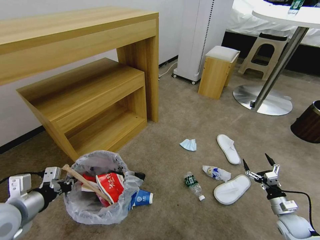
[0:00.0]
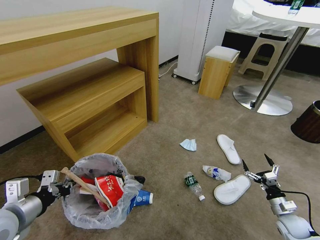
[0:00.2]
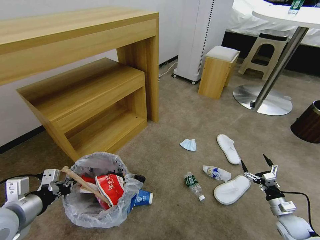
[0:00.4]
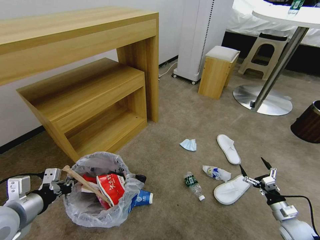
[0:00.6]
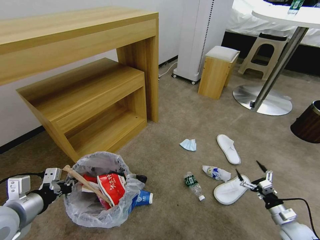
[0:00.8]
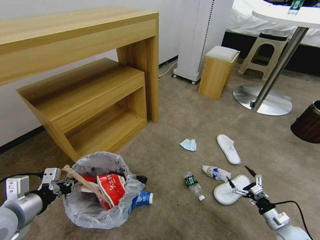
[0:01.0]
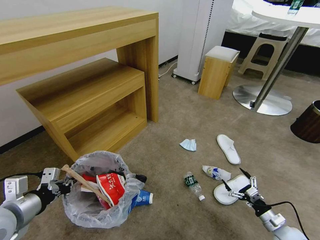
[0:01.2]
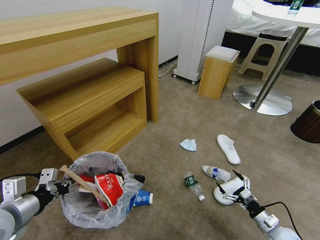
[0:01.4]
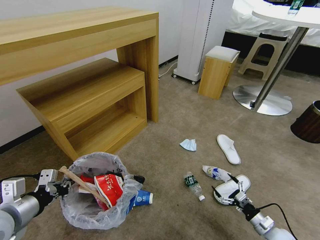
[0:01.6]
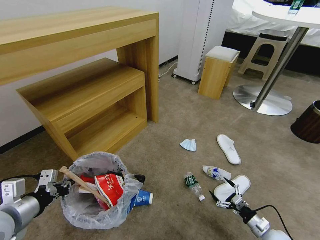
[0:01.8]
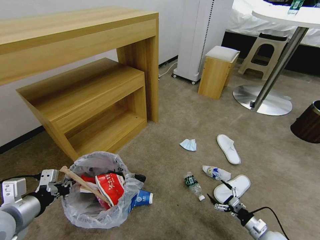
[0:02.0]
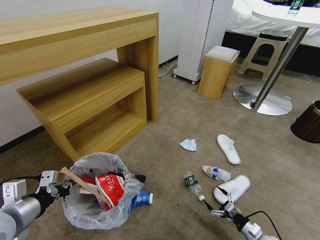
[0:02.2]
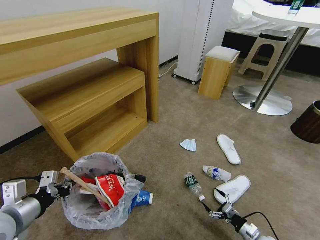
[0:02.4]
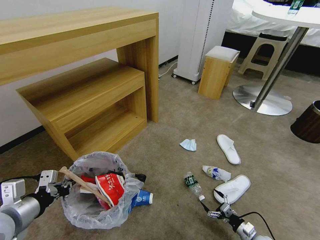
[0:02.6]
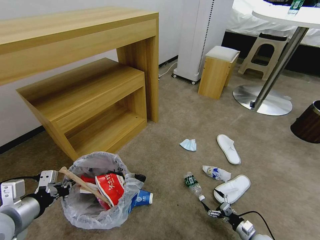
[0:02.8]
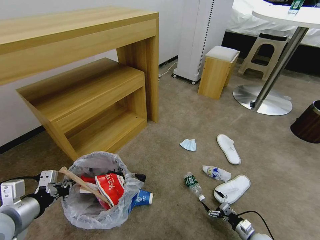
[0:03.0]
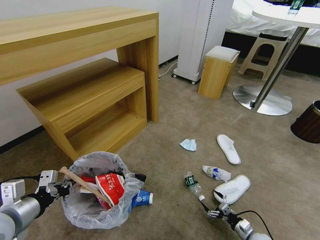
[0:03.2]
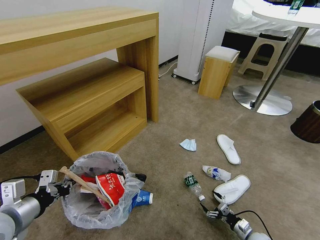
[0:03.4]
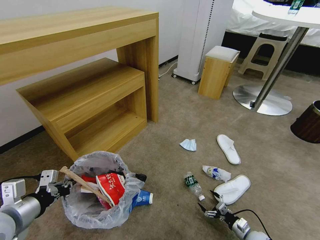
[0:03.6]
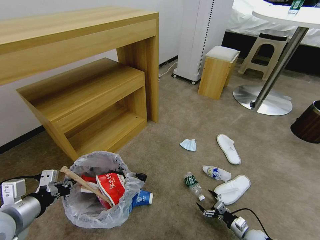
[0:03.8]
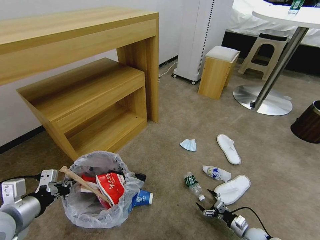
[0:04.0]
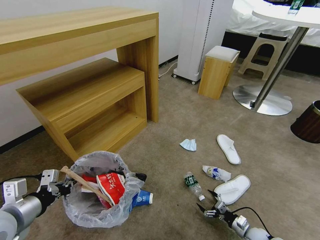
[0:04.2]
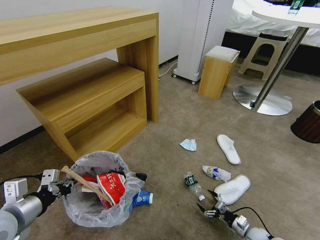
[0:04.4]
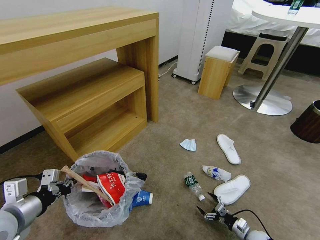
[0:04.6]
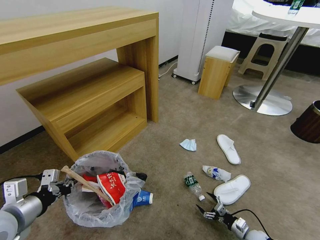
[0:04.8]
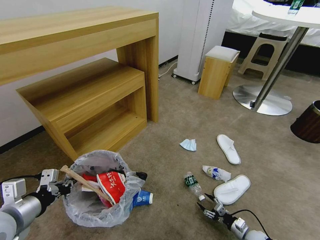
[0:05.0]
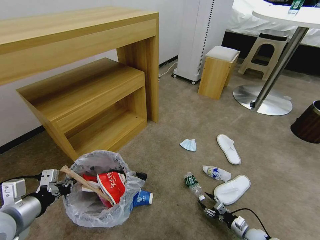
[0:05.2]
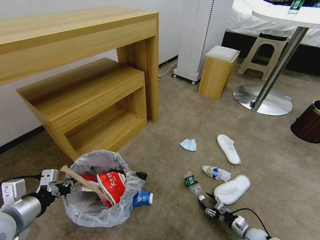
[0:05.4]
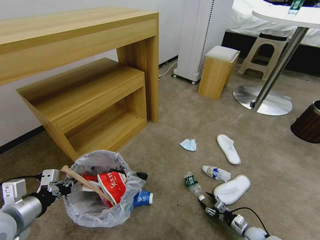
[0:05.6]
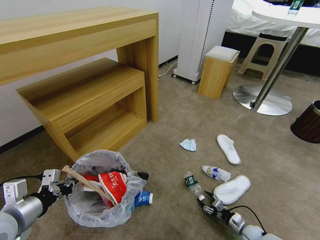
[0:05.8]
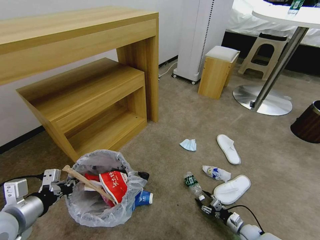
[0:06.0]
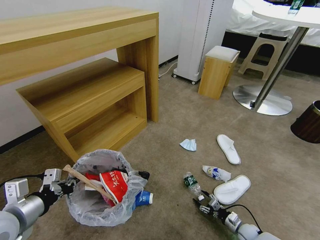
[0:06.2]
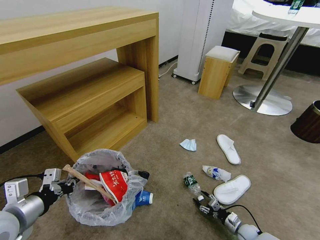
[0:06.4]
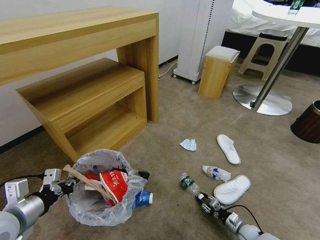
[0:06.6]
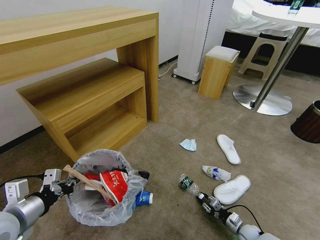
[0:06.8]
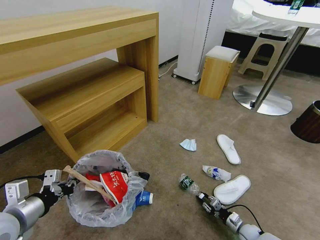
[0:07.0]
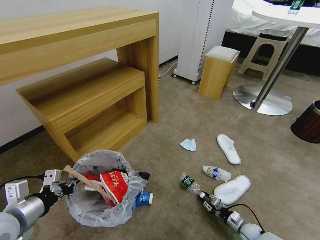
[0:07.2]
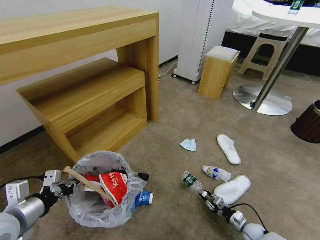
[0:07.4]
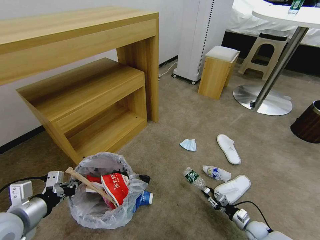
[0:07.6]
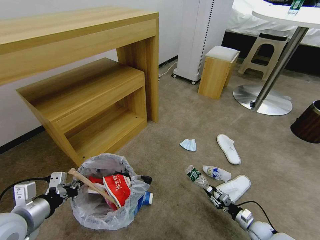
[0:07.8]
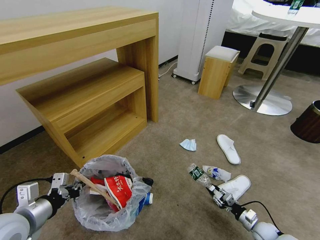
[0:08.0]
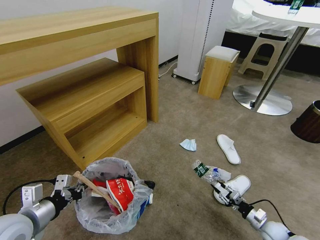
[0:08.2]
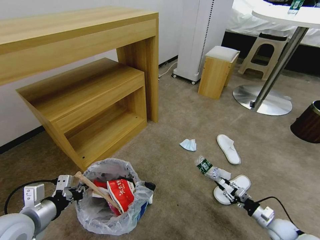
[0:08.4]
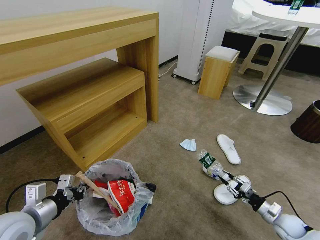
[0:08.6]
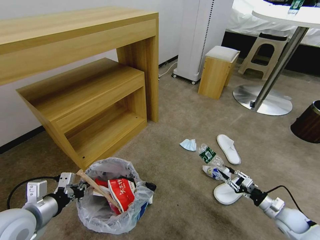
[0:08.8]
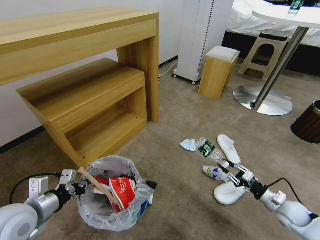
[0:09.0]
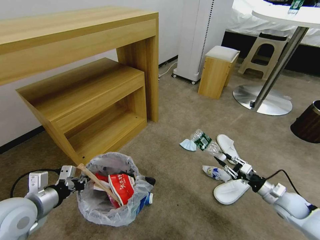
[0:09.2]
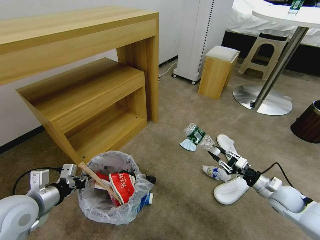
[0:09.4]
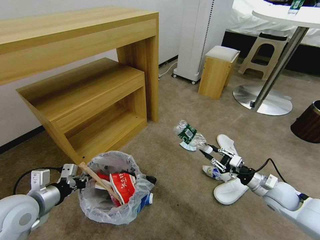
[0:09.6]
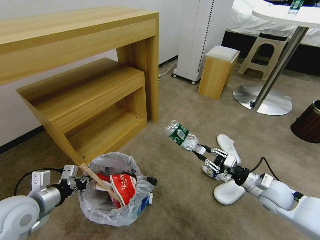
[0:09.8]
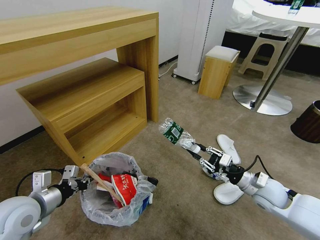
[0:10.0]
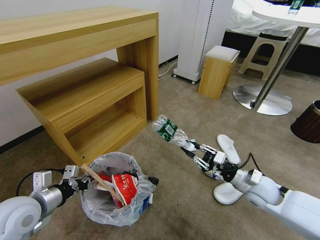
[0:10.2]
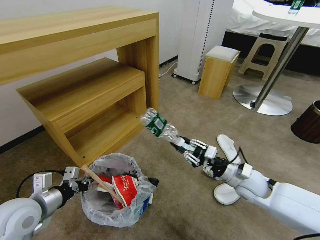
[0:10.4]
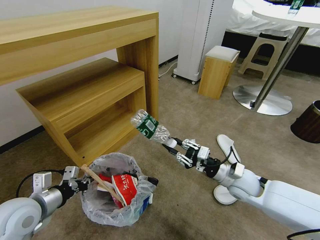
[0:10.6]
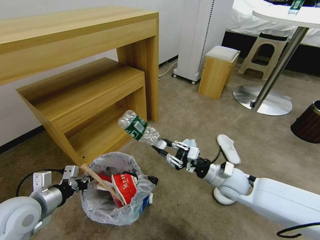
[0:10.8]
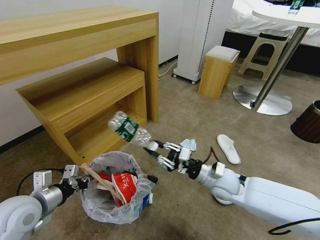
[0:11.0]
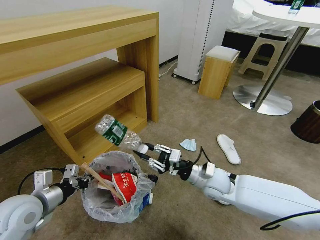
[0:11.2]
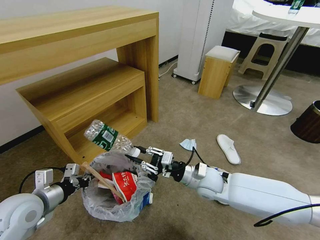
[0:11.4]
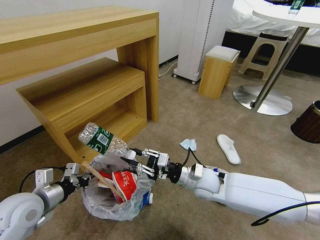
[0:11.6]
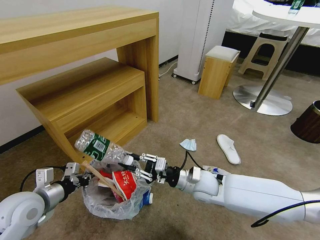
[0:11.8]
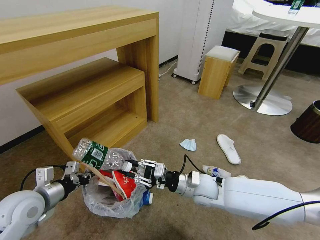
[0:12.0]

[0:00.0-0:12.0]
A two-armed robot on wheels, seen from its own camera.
Task of the whole recording: Pick up the trash bin and place the garbage on the floor into it.
0:00.0 to 0:01.6: The right gripper moves to the left, some 5 cm.
0:01.6 to 0:03.0: The right gripper shifts about 10 cm downward.
0:03.0 to 0:06.0: The grippers make only small movements.
0:06.0 to 0:07.6: The right gripper closes.
0:07.6 to 0:09.0: The right gripper goes approximately 20 cm upward.
0:09.0 to 0:10.4: The right gripper shifts about 20 cm to the left and upward.
0:10.4 to 0:12.0: The right gripper shifts approximately 15 cm to the left.

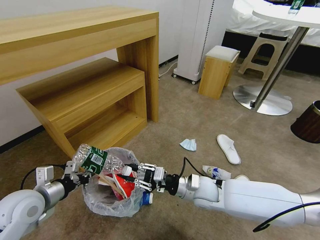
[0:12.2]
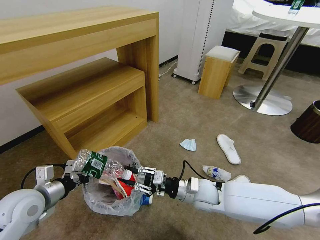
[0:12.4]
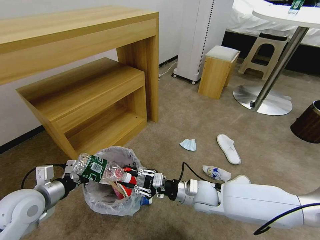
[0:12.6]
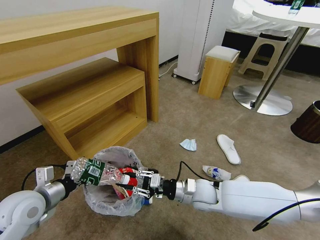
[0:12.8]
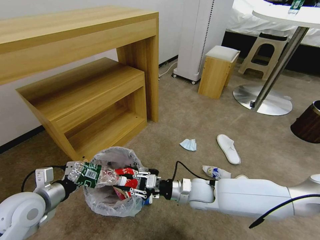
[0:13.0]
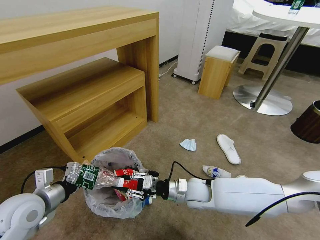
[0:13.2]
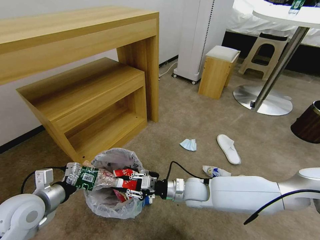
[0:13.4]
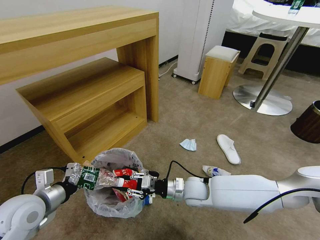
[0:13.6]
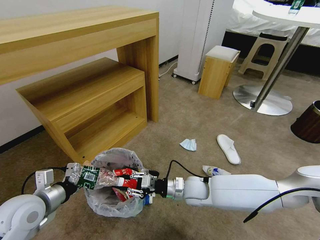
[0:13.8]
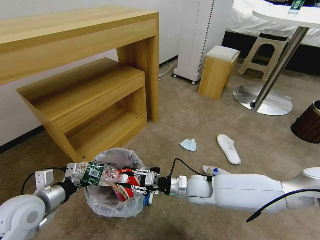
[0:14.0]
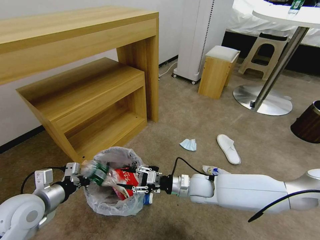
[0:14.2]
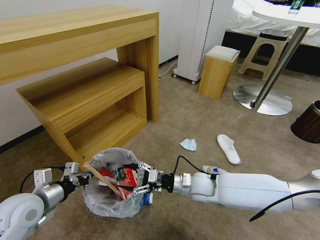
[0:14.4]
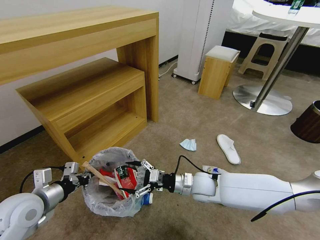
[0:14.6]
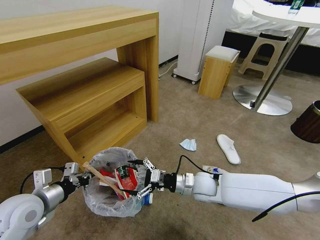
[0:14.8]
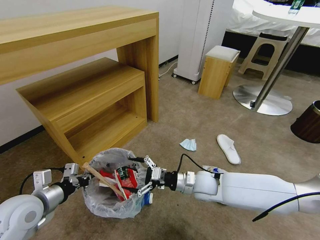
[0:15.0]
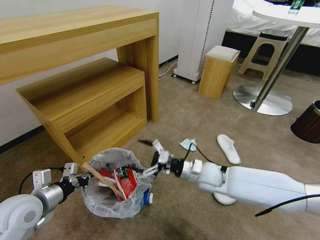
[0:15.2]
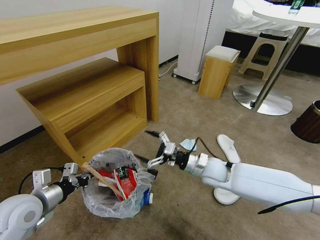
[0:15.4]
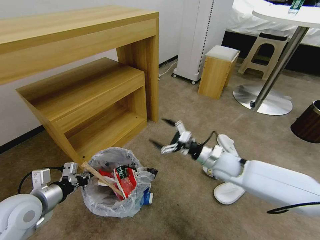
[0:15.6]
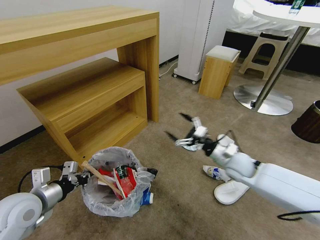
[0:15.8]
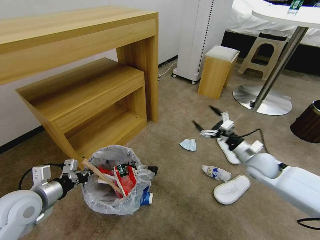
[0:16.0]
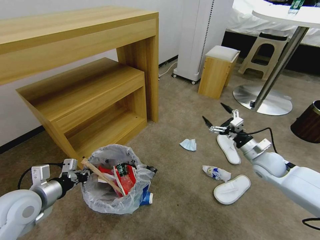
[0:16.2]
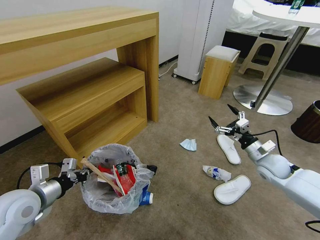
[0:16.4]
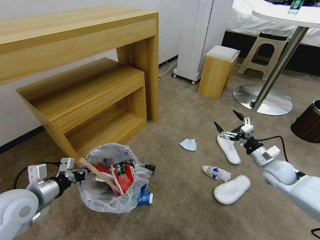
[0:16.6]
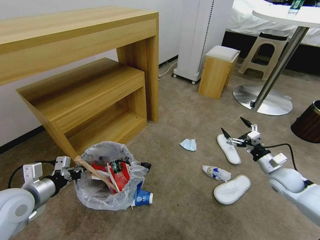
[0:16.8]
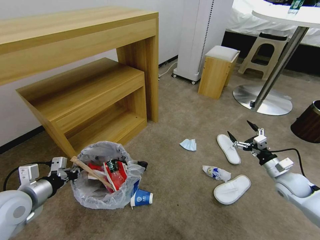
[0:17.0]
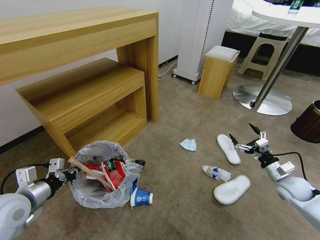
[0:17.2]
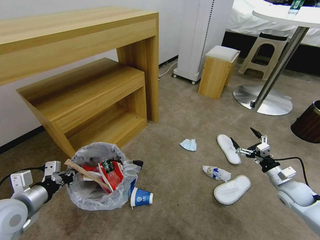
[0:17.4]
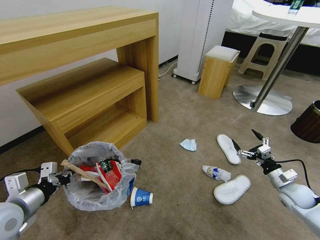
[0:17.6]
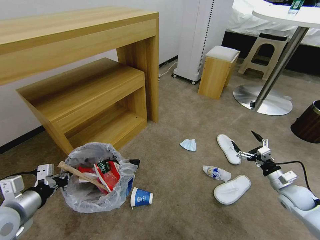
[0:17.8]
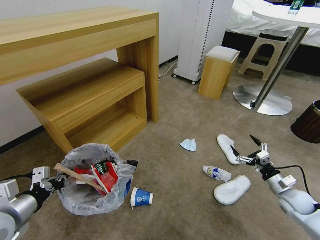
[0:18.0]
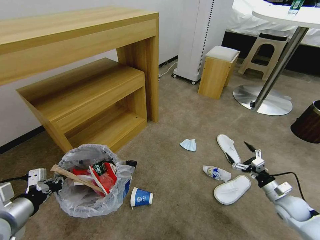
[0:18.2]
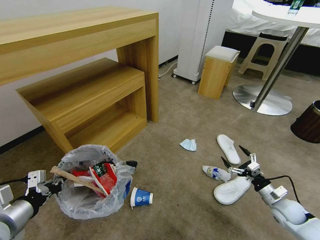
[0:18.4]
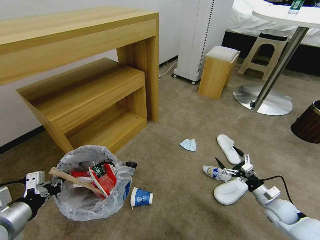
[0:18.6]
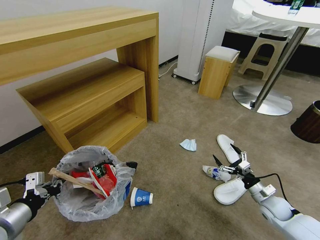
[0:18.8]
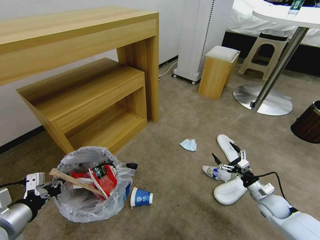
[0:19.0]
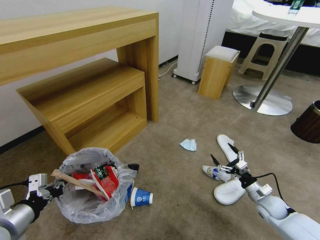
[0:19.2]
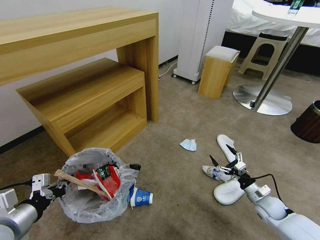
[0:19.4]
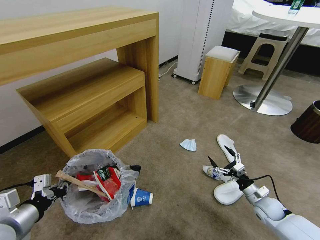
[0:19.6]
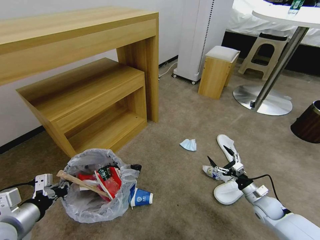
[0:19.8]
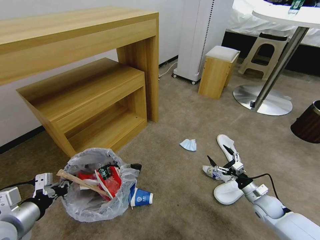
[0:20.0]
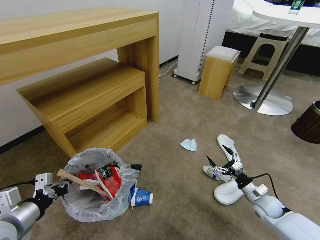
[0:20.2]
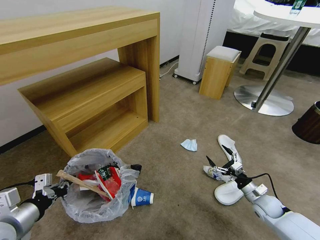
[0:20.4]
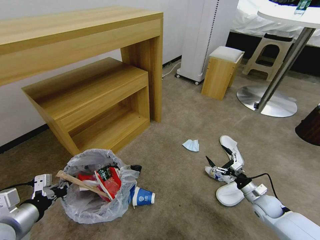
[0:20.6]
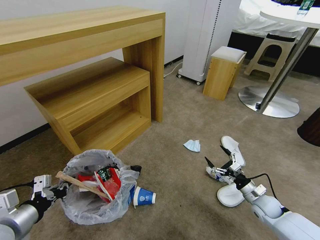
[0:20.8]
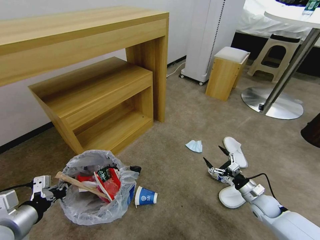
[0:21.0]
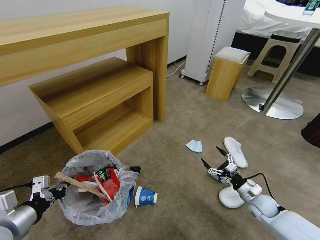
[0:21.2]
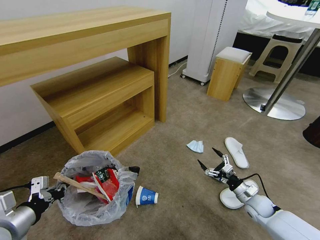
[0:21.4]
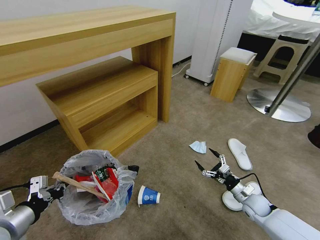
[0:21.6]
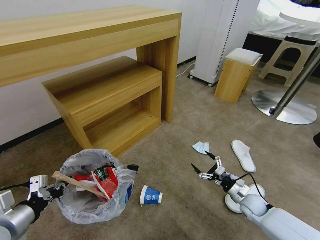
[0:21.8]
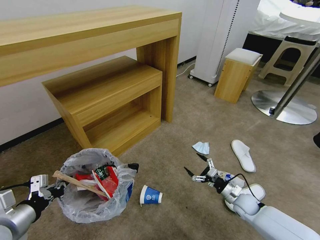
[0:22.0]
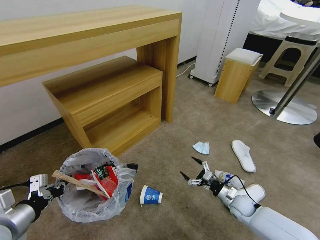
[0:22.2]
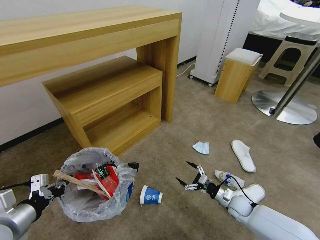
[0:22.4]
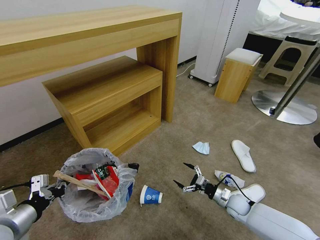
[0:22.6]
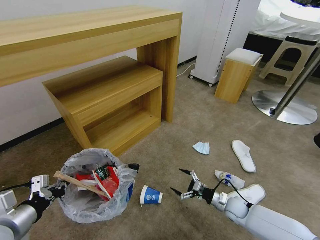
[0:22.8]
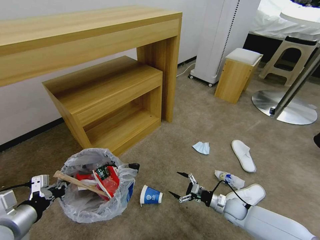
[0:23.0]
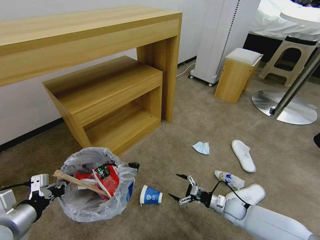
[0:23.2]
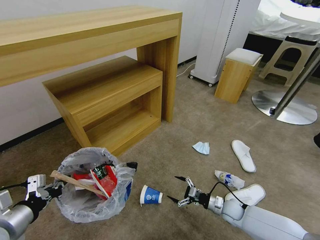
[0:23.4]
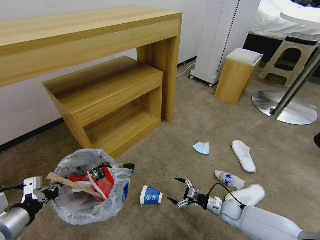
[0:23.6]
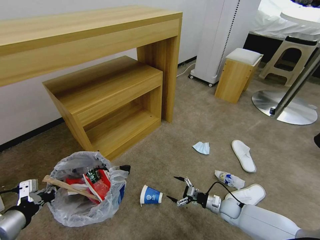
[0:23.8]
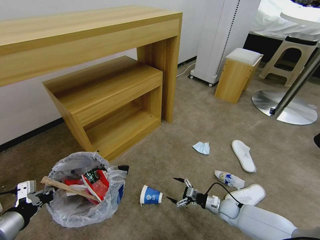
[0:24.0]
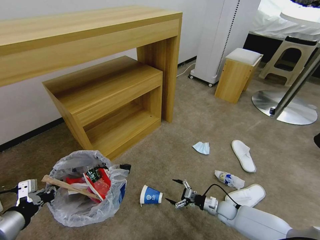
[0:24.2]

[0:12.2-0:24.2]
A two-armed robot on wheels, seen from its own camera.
Task of the whole recording: Pick up the trash bin and place the garbage on the floor into it.
0:12.2 to 0:13.8: The grippers stay close to where they were, moving slightly.
0:13.8 to 0:15.2: The right gripper shifts by approximately 5 cm, and opens.
0:15.2 to 0:16.6: The right gripper goes roughly 25 cm to the right.
0:16.6 to 0:18.2: The right gripper moves downward, backward and to the right, roughly 15 cm. Meanwhile the left gripper shifts about 5 cm backward.
0:18.2 to 0:19.8: The right gripper shifts roughly 5 cm to the left.
0:21.2 to 0:22.6: The right gripper goes about 5 cm to the left.
0:22.6 to 0:24.2: The right gripper travels downward by approximately 5 cm.
